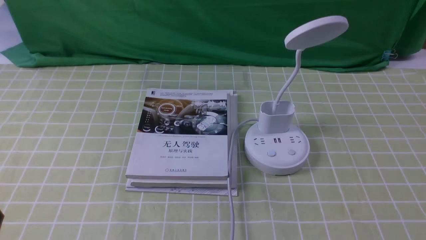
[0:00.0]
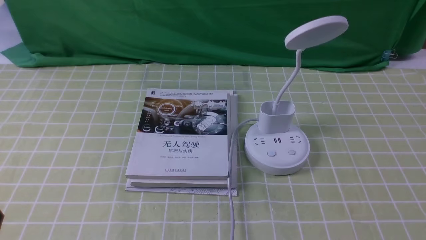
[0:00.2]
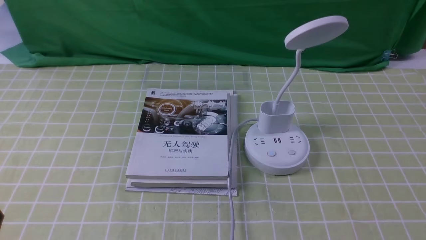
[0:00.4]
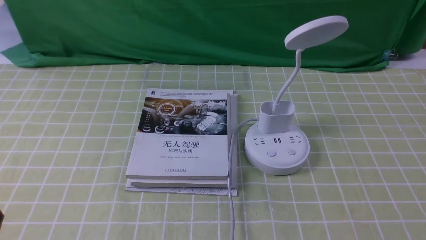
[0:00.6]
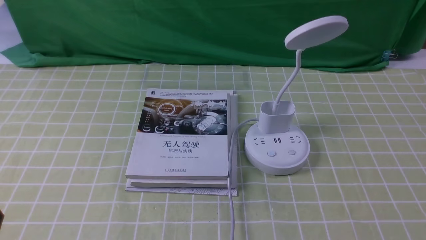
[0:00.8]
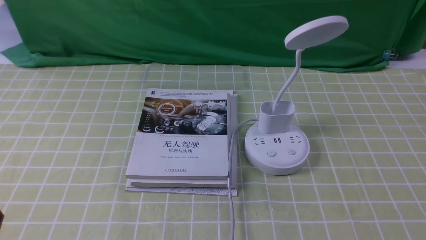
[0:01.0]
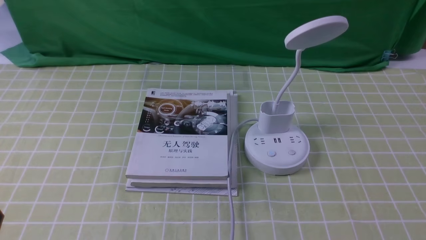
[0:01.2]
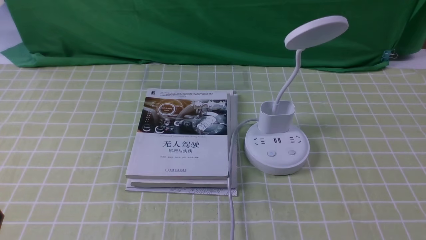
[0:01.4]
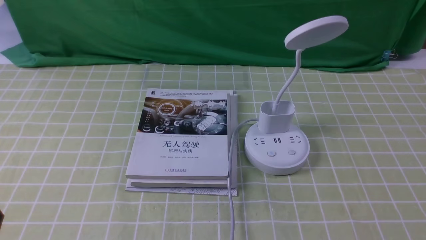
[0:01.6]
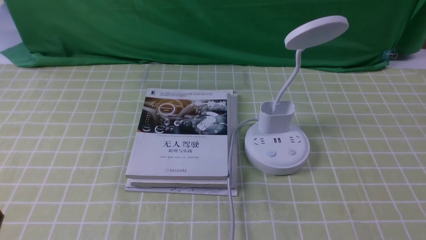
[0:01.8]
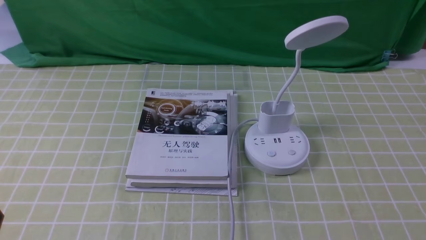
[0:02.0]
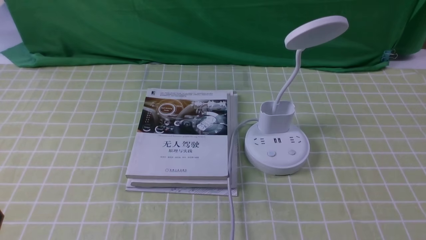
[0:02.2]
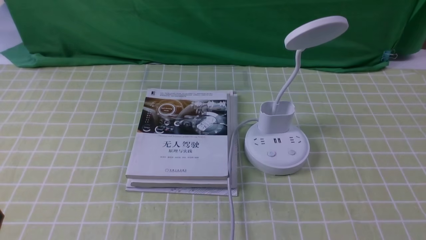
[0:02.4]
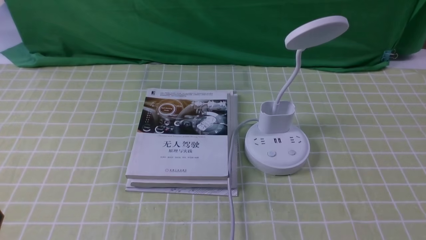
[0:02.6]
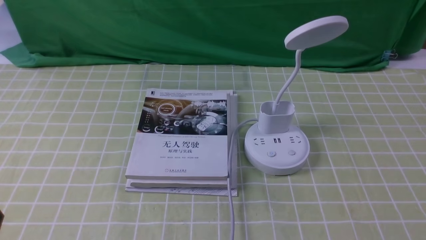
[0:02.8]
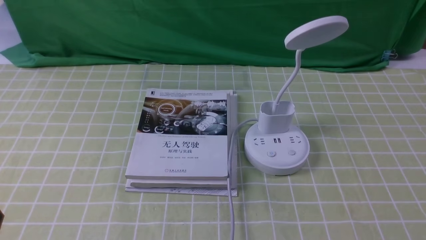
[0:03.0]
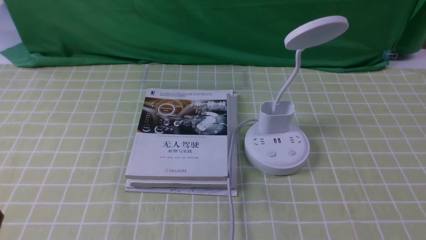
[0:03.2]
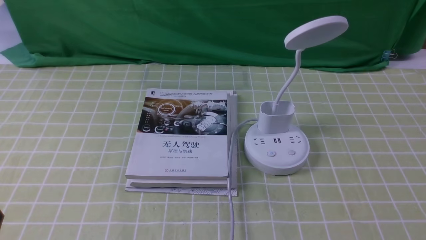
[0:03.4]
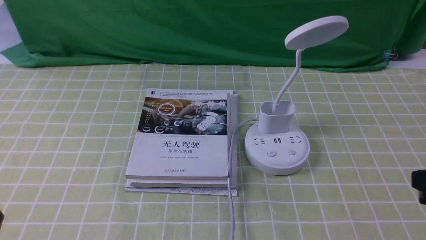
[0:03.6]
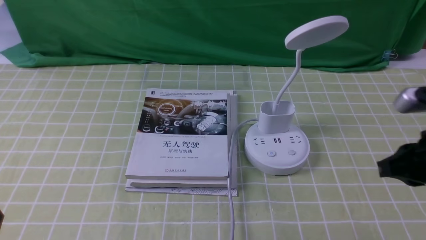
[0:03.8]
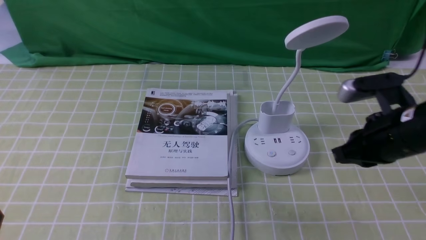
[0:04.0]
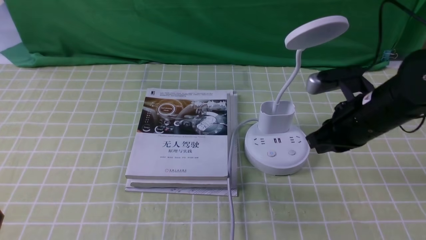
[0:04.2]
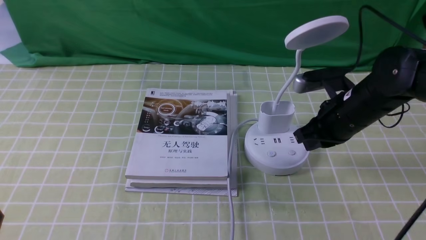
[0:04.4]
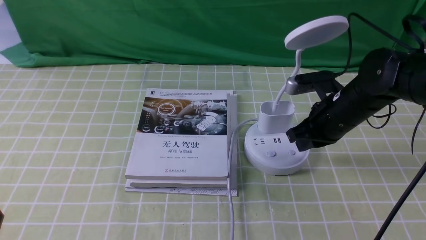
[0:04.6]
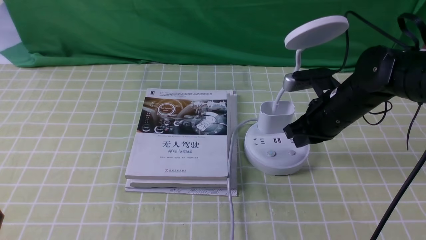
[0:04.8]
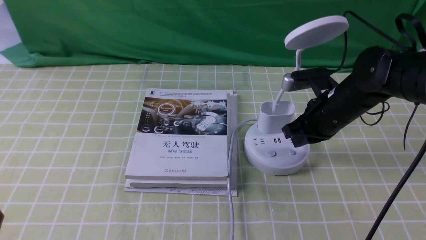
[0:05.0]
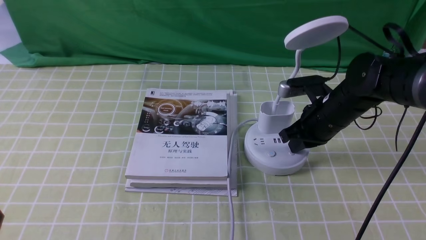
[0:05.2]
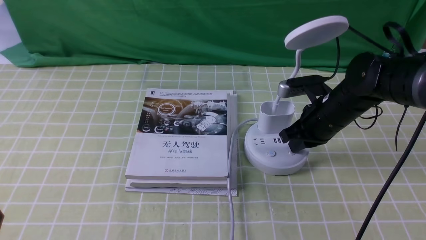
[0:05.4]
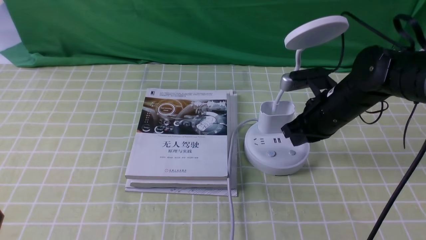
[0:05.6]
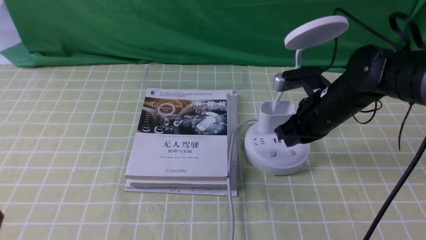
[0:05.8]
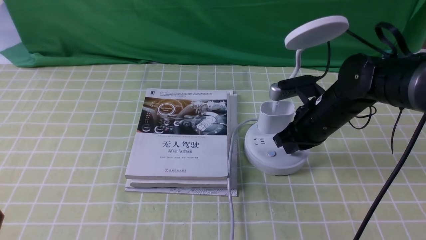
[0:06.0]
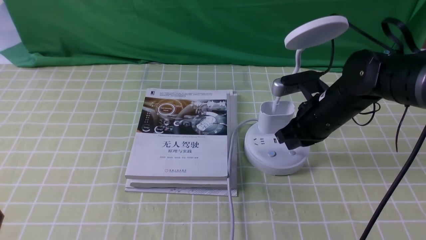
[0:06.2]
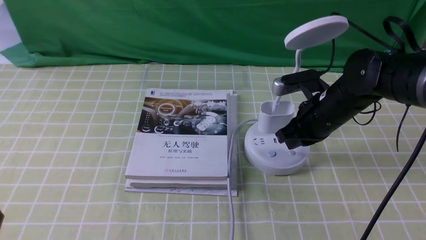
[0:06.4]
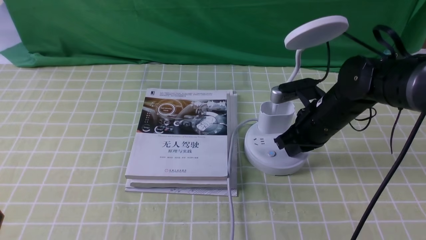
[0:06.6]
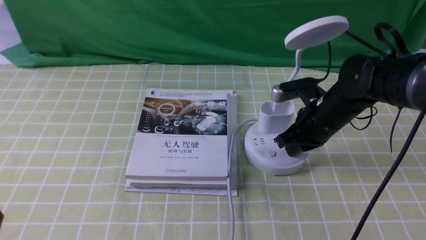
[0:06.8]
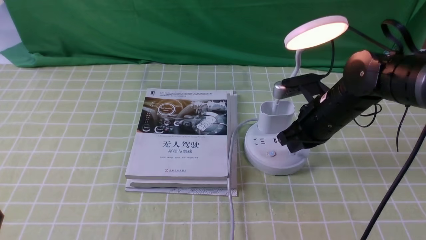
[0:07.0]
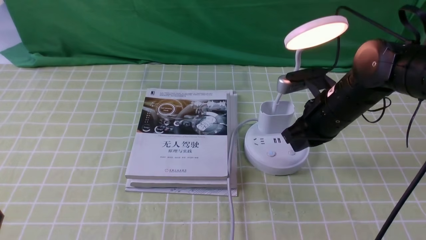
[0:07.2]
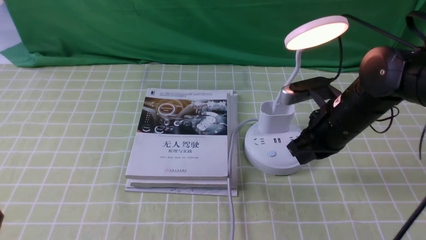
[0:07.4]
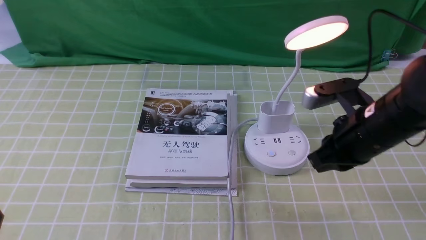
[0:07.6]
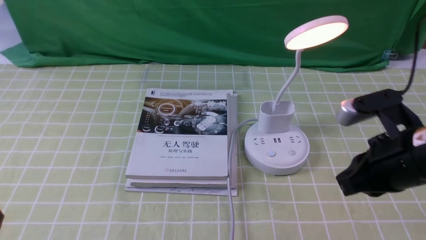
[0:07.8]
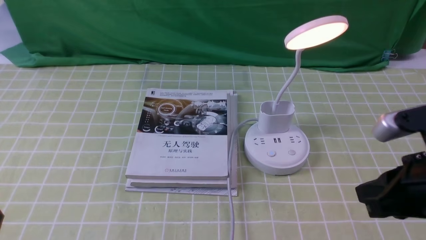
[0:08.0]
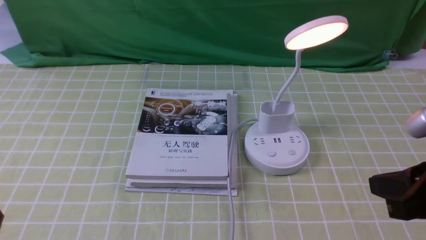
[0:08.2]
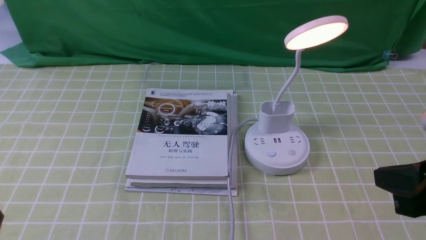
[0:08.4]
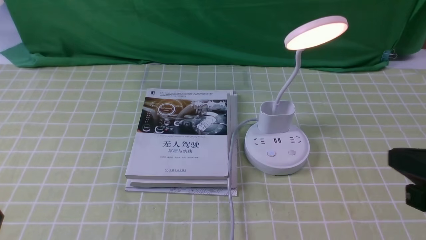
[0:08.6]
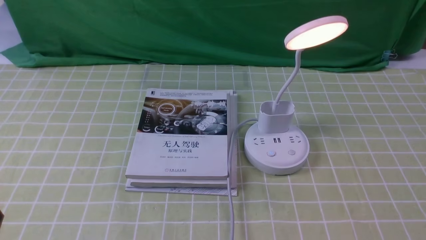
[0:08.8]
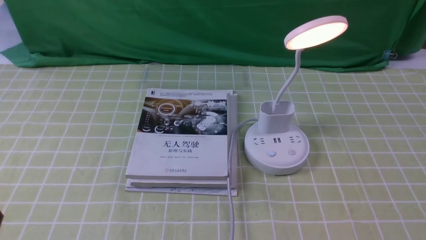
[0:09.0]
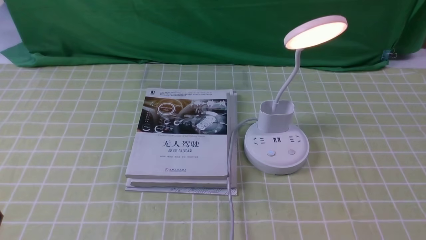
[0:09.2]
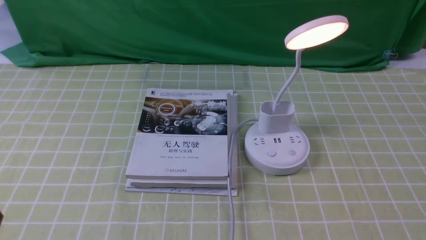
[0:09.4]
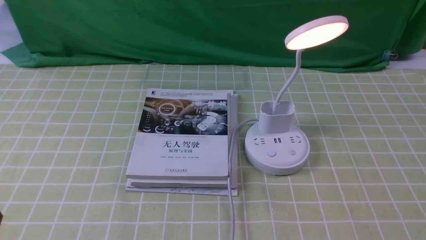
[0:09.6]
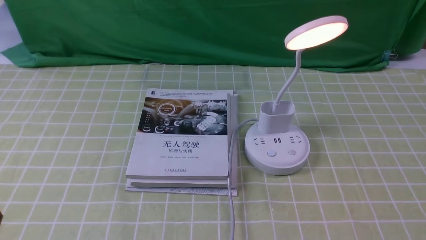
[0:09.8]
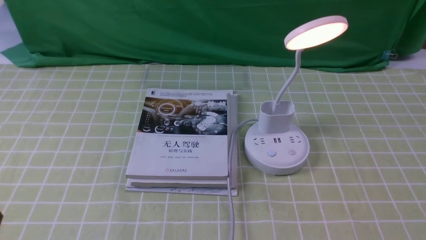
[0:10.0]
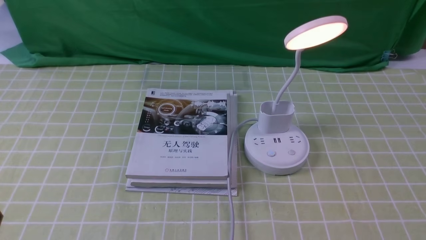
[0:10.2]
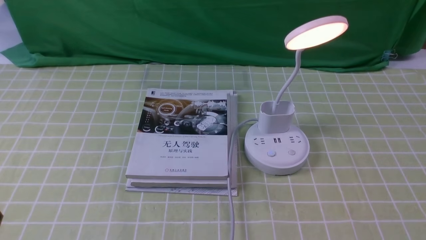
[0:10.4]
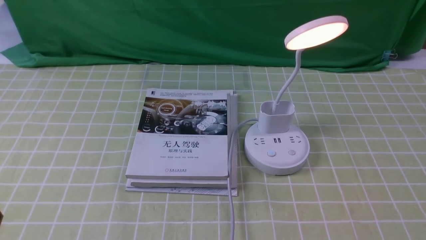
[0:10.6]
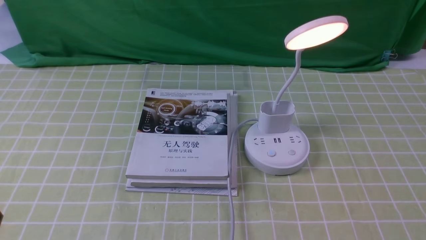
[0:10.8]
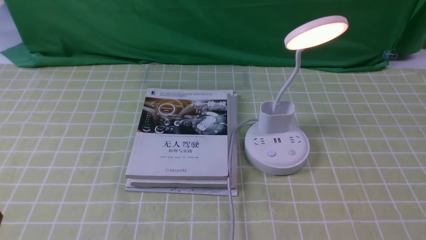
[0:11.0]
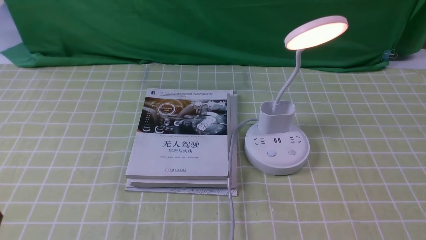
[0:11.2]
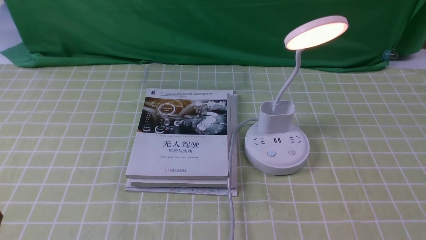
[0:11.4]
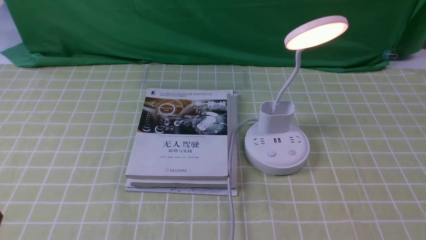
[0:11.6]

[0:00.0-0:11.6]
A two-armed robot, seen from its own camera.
Step, 0:00.0 to 0:07.2: use the right arm to press the button switch on the lamp holder.
0:00.0 to 0:01.4: Both grippers stay about where they are.
0:02.8 to 0:04.4: The right gripper moves forward and to the left, approximately 30 cm, and closes up.
0:04.4 to 0:07.2: There are only small adjustments of the grippers.
0:07.2 to 0:08.8: The right gripper travels backward and to the right by about 30 cm.
0:10.2 to 0:11.6: Both grippers stay about where they are.

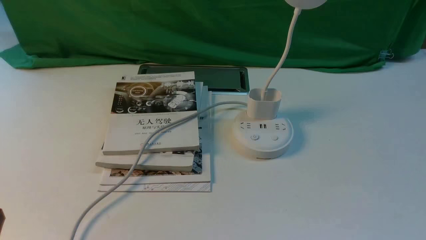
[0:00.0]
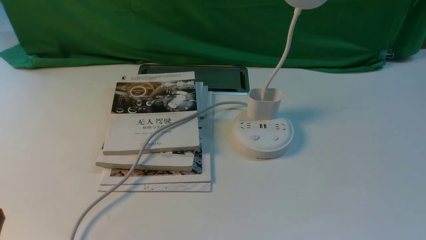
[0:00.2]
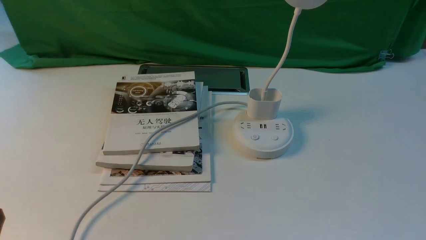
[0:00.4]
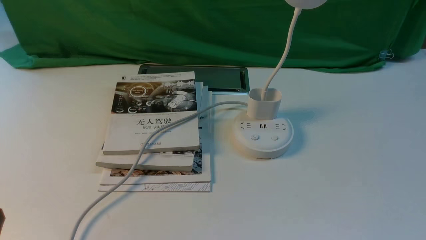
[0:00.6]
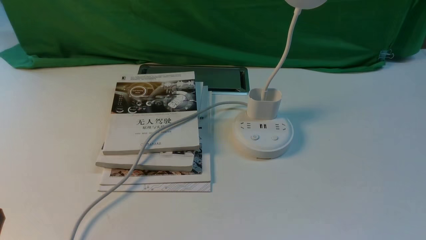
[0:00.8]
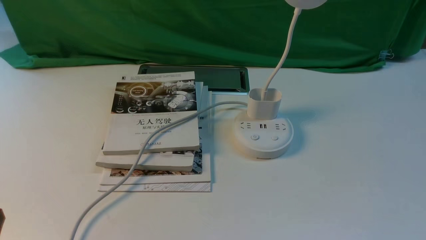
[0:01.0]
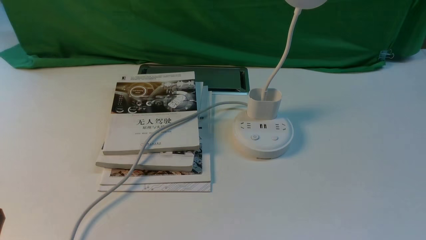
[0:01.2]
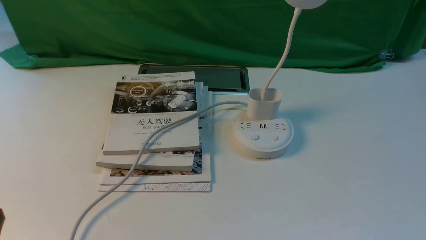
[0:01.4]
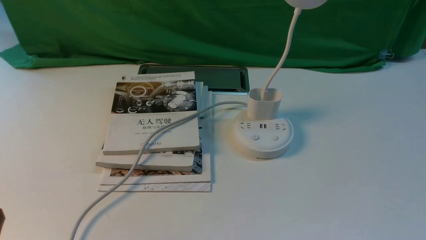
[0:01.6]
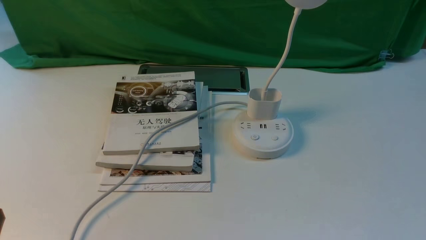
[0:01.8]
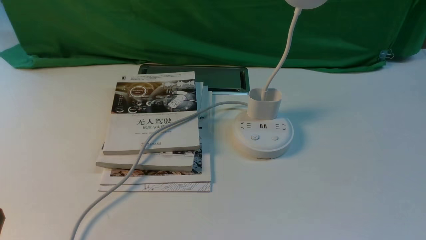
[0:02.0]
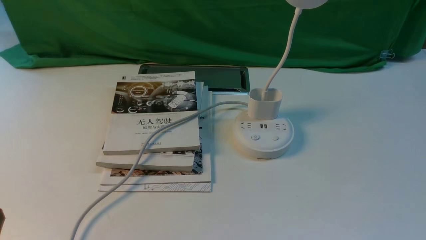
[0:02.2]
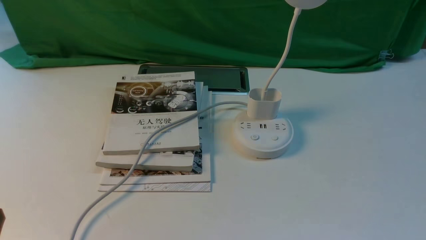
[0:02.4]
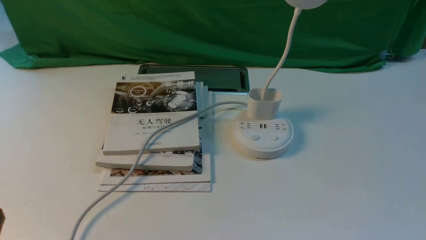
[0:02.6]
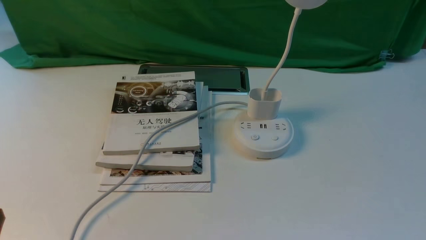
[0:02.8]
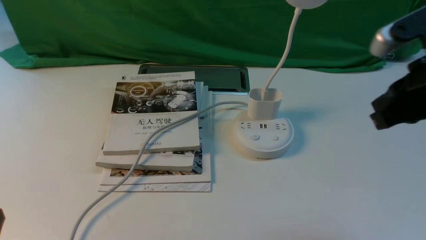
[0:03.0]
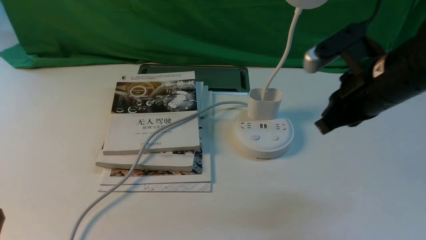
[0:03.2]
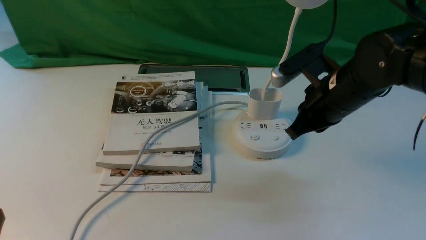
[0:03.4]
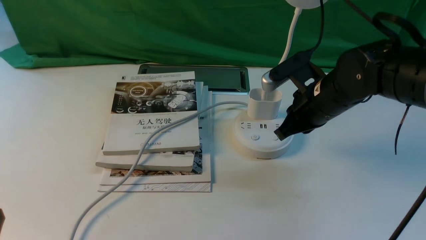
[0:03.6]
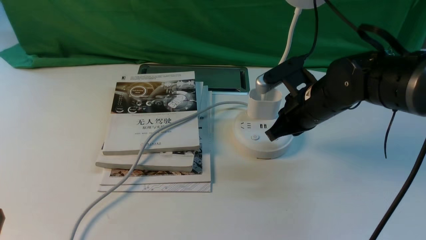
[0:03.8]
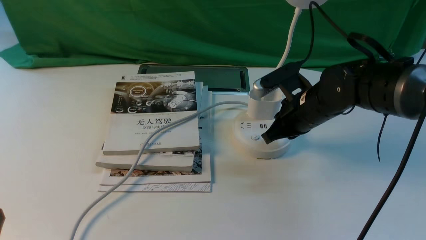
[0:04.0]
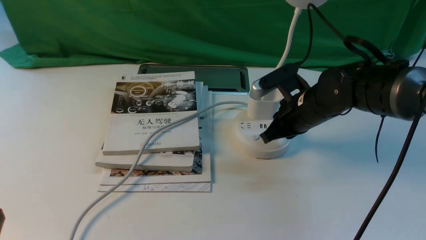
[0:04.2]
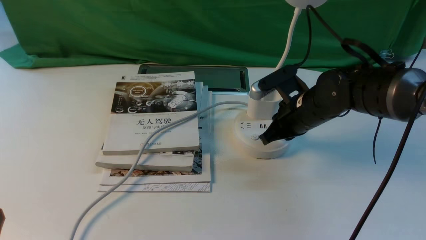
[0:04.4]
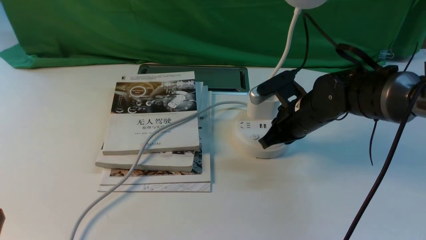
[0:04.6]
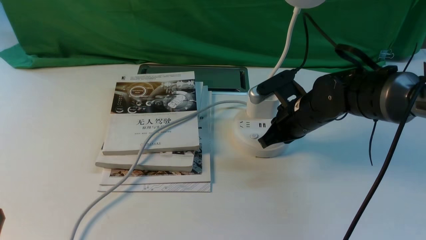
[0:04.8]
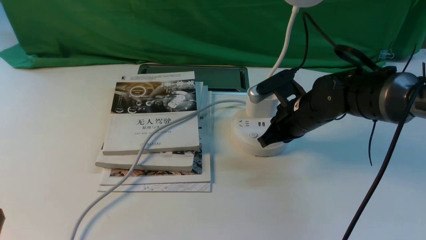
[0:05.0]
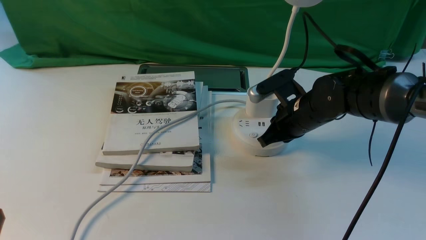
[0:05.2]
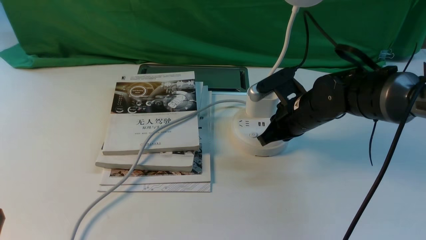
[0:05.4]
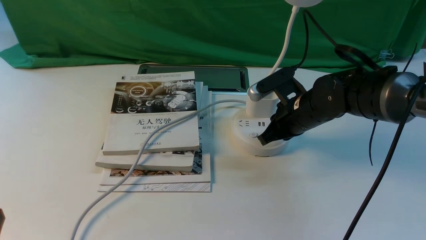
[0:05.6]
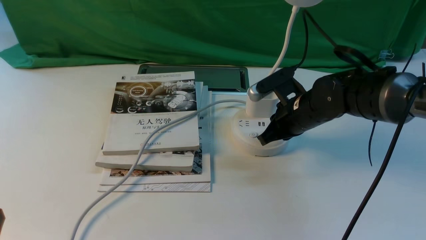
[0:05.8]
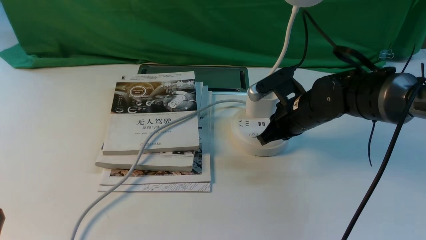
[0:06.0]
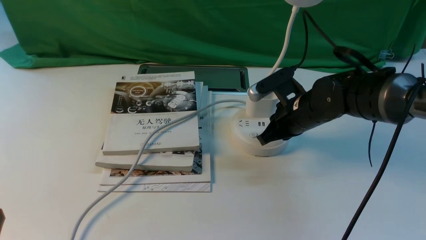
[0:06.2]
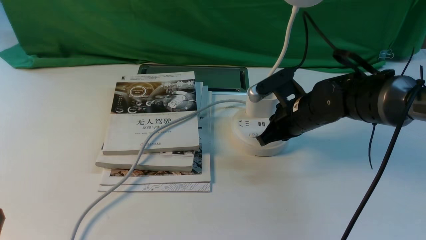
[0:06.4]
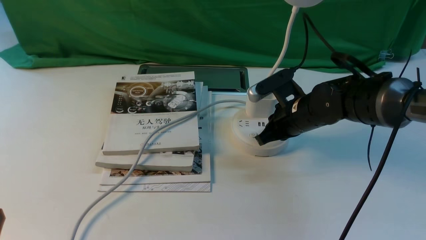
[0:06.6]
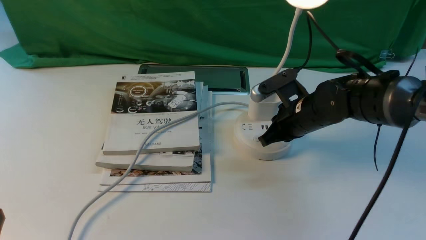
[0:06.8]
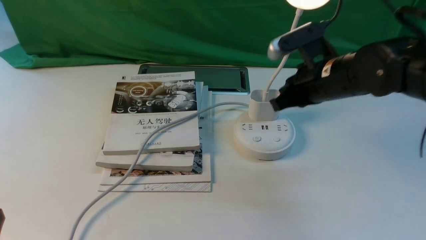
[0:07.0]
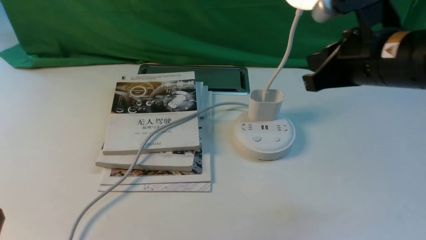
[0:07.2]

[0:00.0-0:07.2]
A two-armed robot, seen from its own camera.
Step, 0:00.0 to 0:07.0: use the right arm to press the button switch on the lamp holder.
0:02.8 to 0:04.4: The right gripper moves downward, forward and to the left, approximately 30 cm.
0:04.4 to 0:05.8: Both grippers stay put.
0:05.8 to 0:07.2: The right gripper travels upward and backward by some 20 cm.
